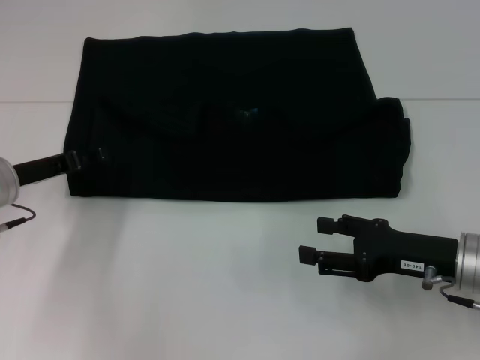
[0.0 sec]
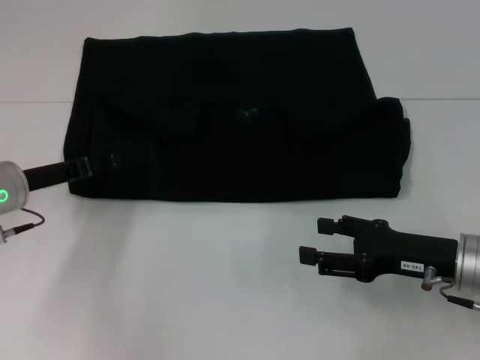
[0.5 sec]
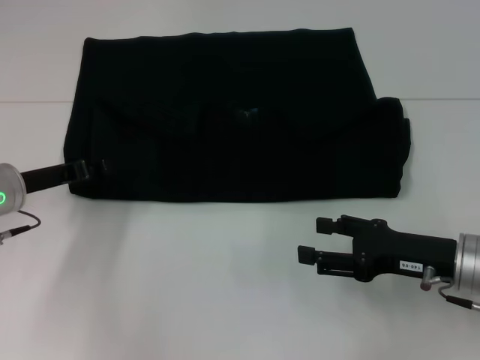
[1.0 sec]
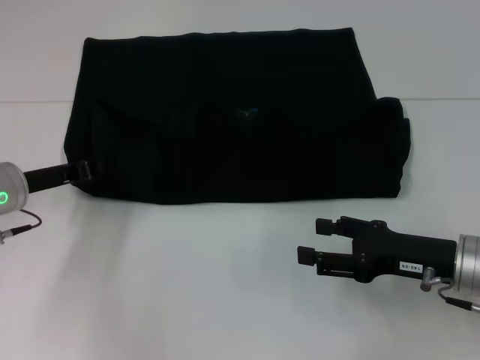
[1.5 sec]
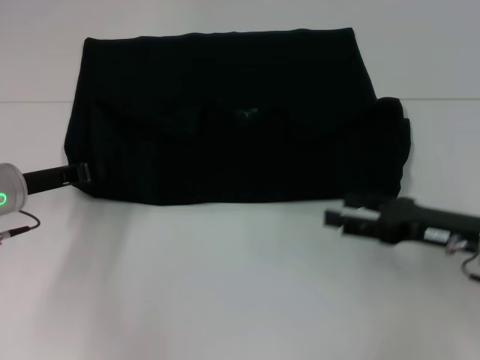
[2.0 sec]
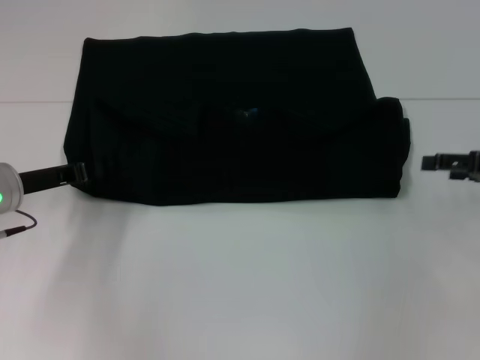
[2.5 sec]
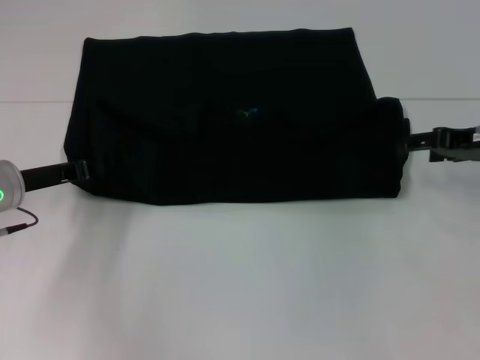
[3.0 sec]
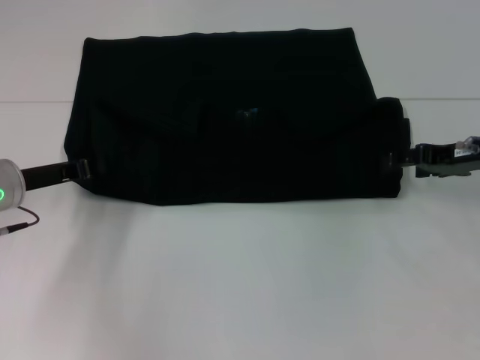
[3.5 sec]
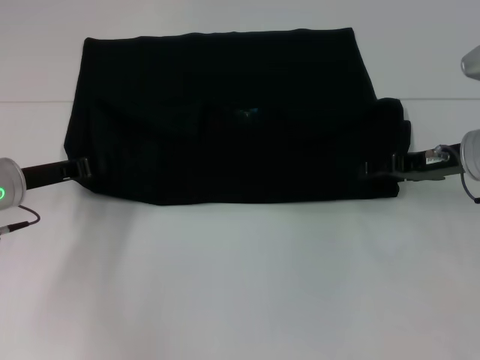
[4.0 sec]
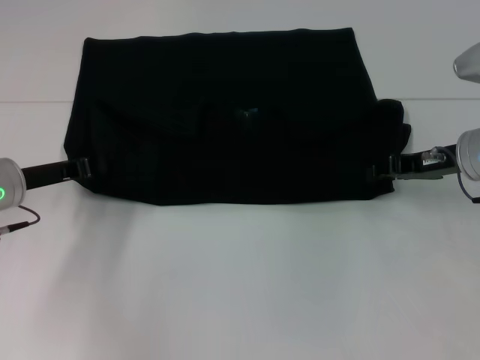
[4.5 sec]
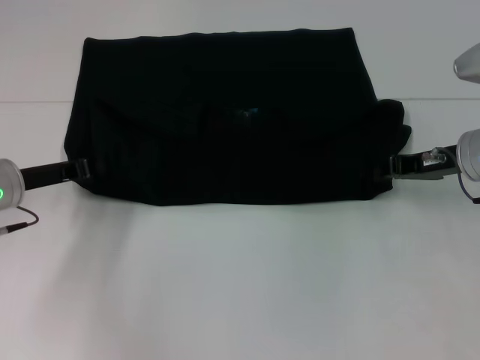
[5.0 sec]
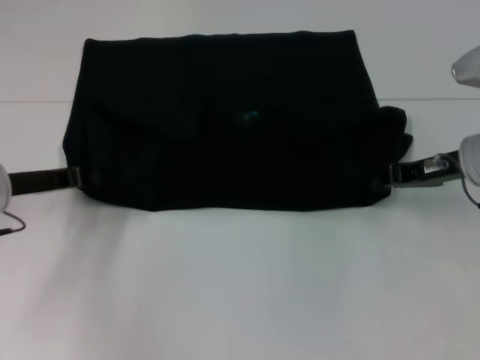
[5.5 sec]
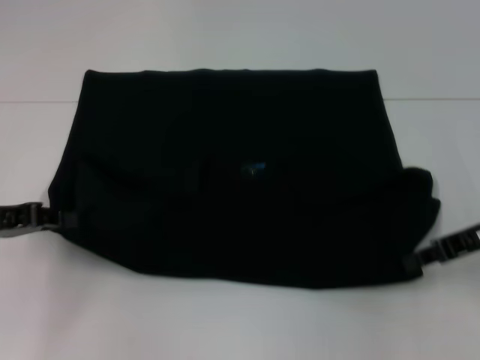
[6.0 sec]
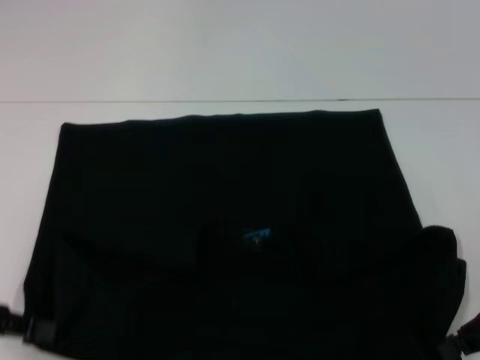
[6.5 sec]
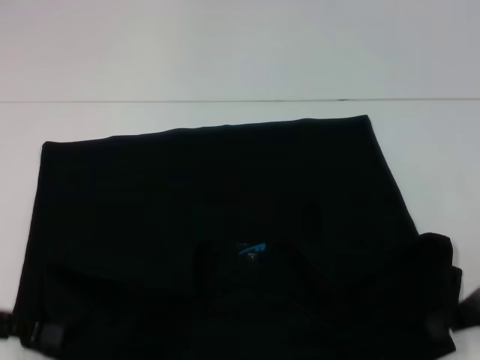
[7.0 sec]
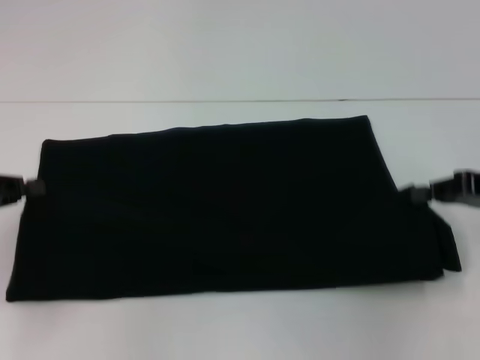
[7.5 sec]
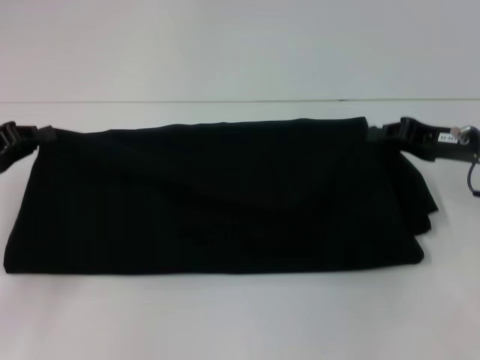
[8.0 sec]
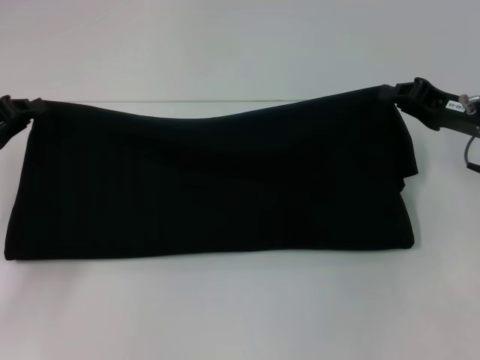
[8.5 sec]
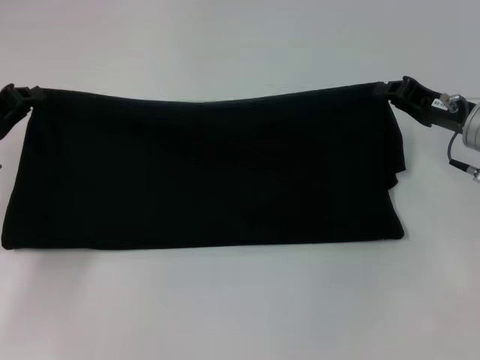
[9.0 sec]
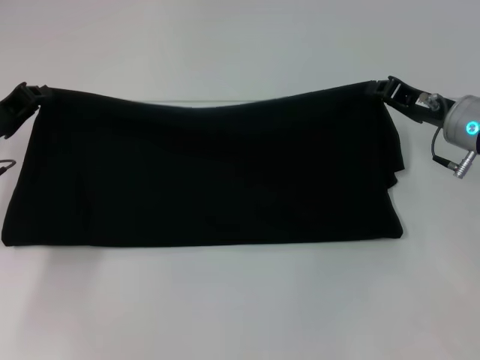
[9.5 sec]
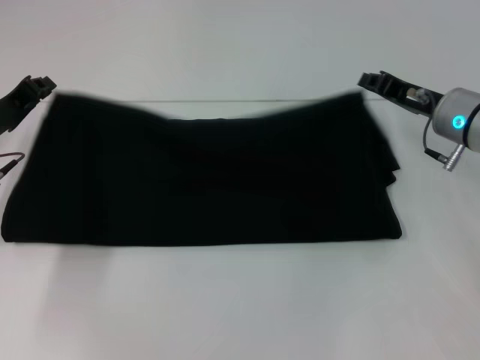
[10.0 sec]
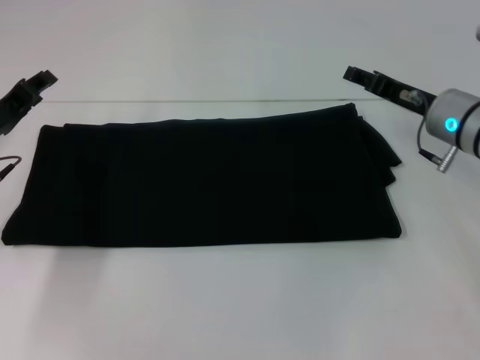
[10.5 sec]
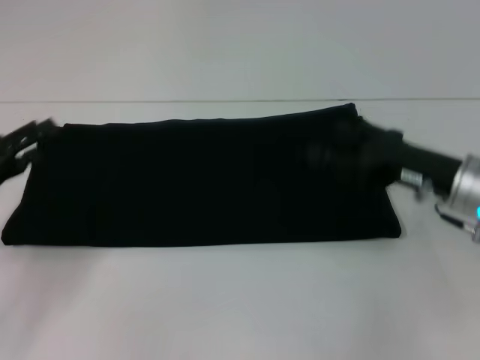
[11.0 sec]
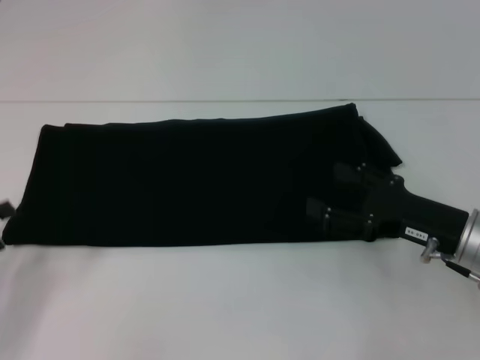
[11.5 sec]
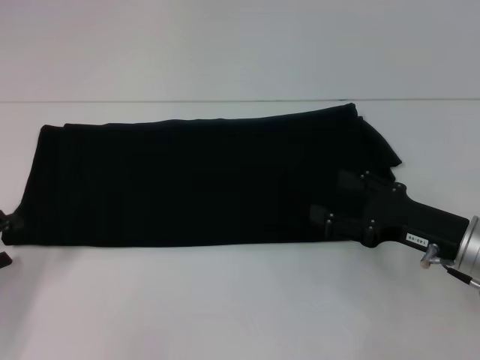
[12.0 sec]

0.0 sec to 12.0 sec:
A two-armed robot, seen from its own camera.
Step, 0.0 sec to 6.5 sec: Pull the clothes with your left hand.
Step, 0.0 sec to 6.5 sec: Pull the clothes with your right hand.
Step, 7.0 sec to 10.0 sec: Fold the clothes with your right hand.
0.0 sec to 2.0 sec: The left gripper closes its fingers.
2.0 sec to 4.0 sec: The right gripper moves forward, approximately 10 cm.
4.0 sec to 6.0 sec: The left gripper heads backward and to the left, covering some 10 cm. Meanwhile the right gripper heads backward, covering roughly 5 cm, and closes up.
6.0 sec to 8.0 sec: The left gripper reaches approximately 5 cm backward, then returns.
8.0 sec to 10.0 sec: The left gripper shifts roughly 5 cm forward, while the right gripper ends up approximately 5 cm from where it was.
10.0 sec to 12.0 sec: The left gripper is displaced backward and to the left by approximately 15 cm, and opens up; the right gripper heads backward and downward, covering roughly 15 cm, and opens up.

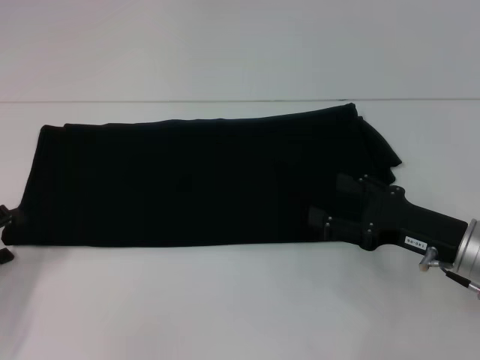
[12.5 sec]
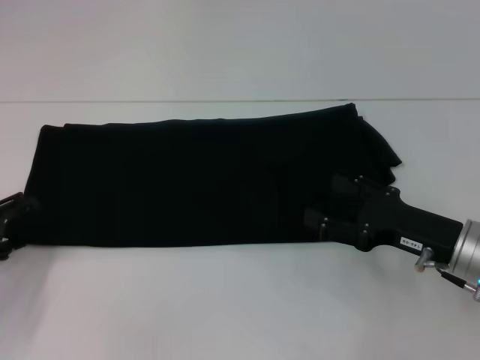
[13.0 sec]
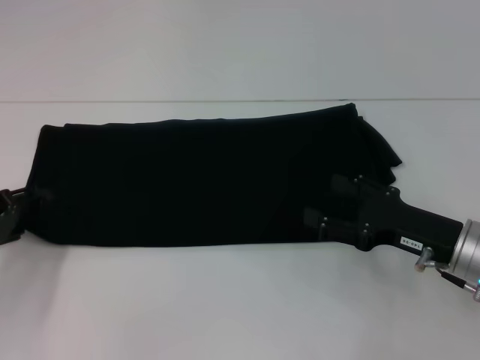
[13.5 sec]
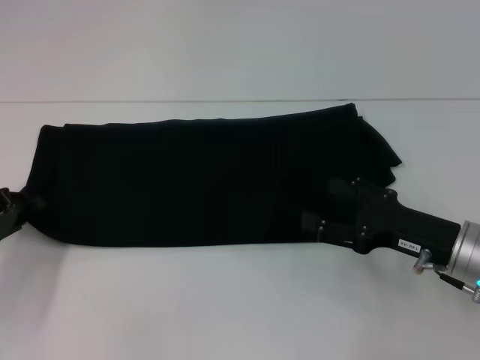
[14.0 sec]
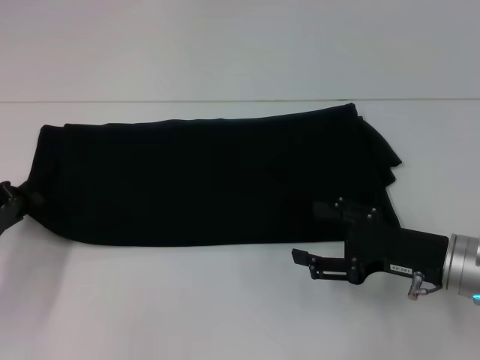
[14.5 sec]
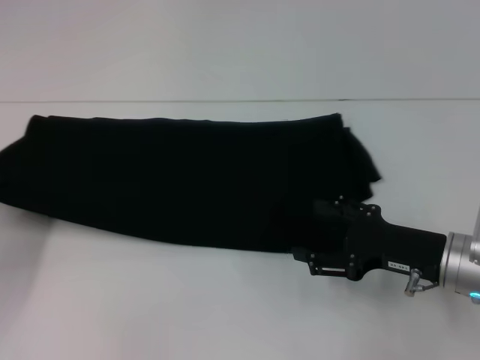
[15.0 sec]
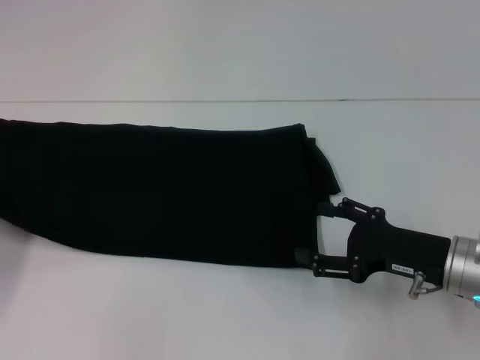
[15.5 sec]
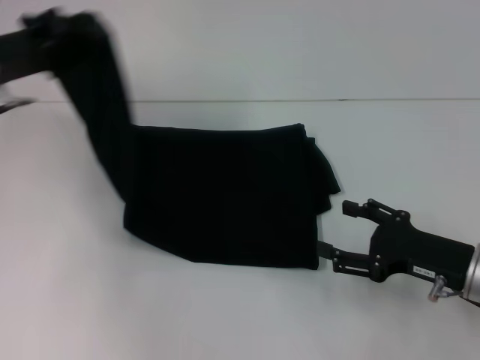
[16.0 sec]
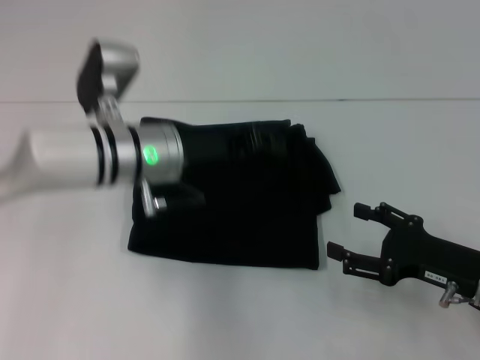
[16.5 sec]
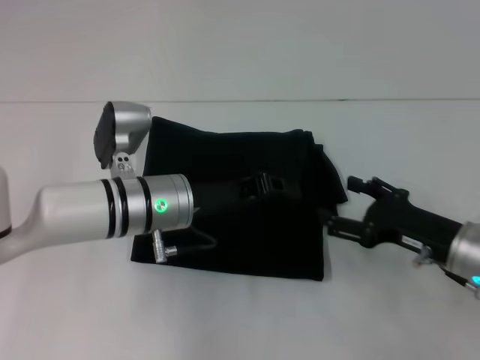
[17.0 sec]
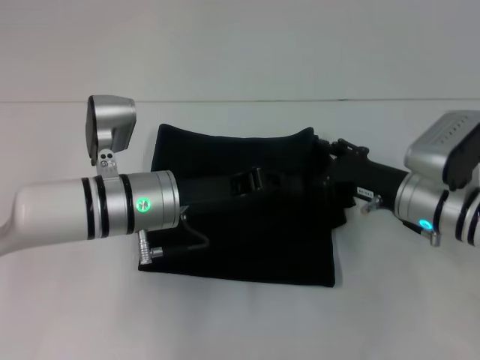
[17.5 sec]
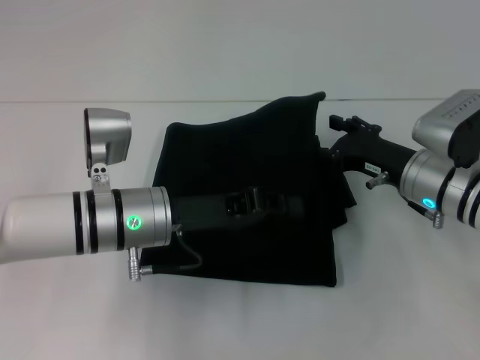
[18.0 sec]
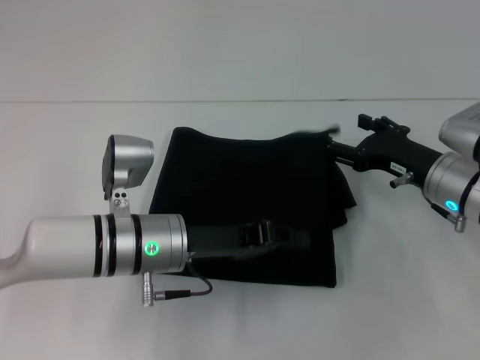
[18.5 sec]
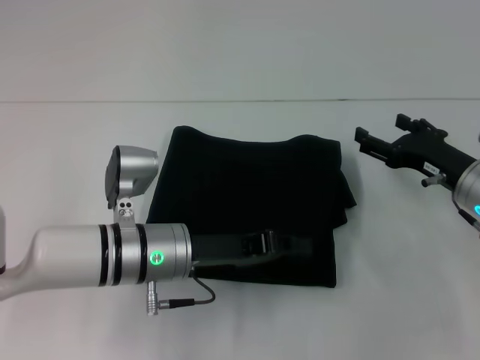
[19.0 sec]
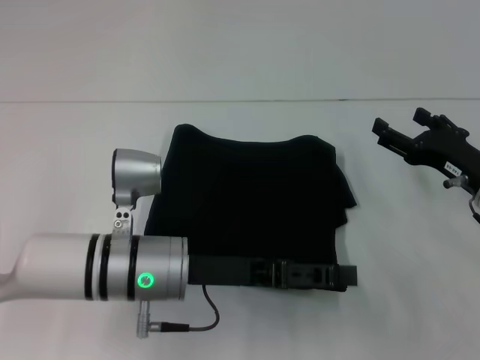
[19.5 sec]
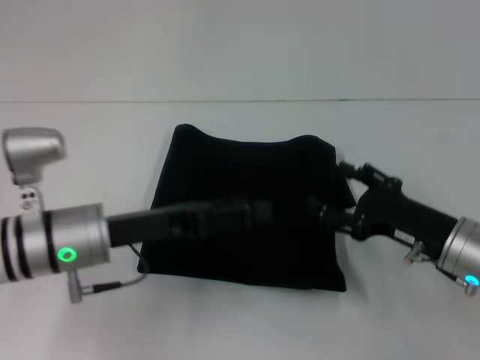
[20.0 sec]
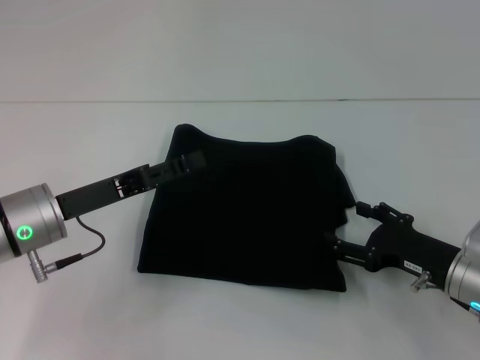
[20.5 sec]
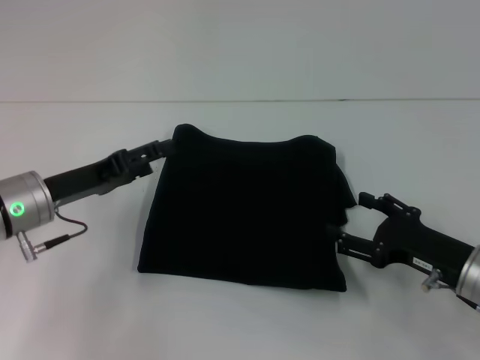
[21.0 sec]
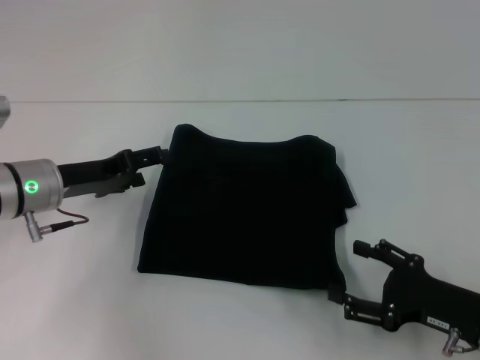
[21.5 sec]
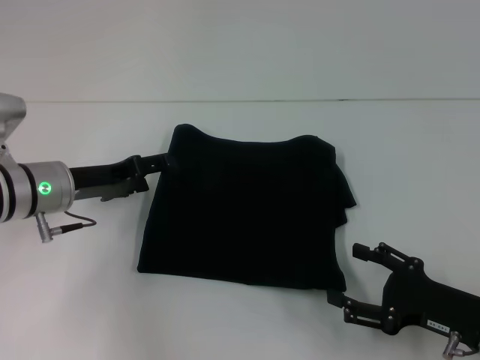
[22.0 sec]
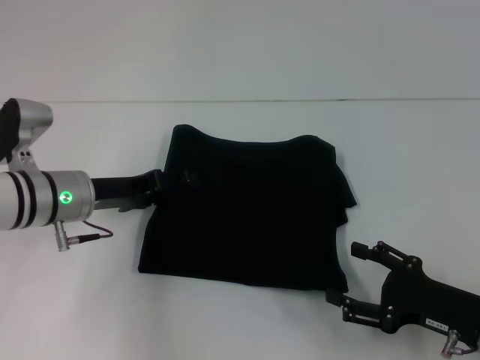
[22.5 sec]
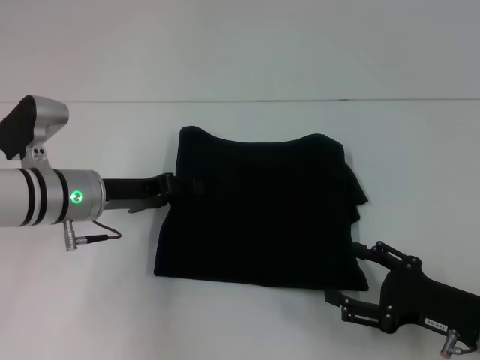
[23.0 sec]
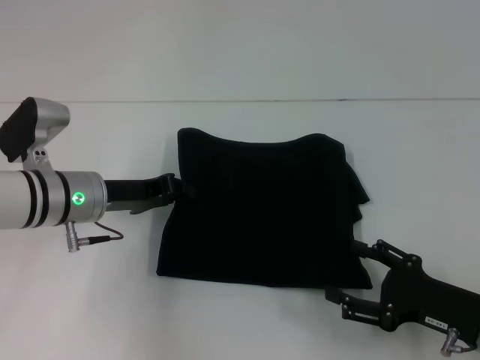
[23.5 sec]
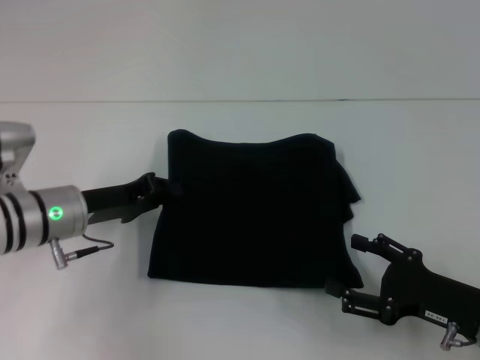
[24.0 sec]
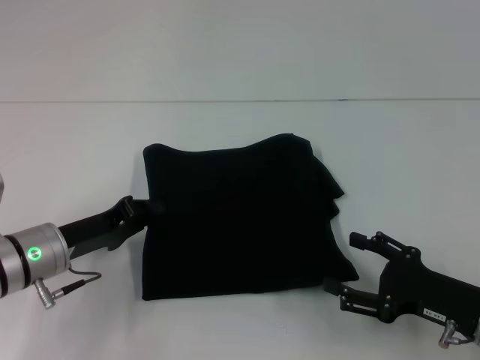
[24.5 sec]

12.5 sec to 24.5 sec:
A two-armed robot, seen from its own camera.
Step, 12.5 sec to 19.5 sec: Fold the clothes with your left hand.
12.5 sec to 14.5 sec: The left gripper shifts by approximately 5 cm, and closes.
14.5 sec to 16.5 sec: The left gripper is displaced to the right by roughly 25 cm.
16.5 sec to 18.5 sec: The left gripper heads backward and downward, covering about 10 cm, while the right gripper travels forward by some 10 cm.
18.5 sec to 20.5 sec: The right gripper moves backward, roughly 10 cm. Meanwhile the left gripper shifts approximately 10 cm to the left, and opens.
20.5 sec to 22.5 sec: The right gripper travels backward by approximately 5 cm; the left gripper moves forward, about 5 cm.
22.5 sec to 24.5 sec: The left gripper travels backward by some 5 cm, and closes its fingers.

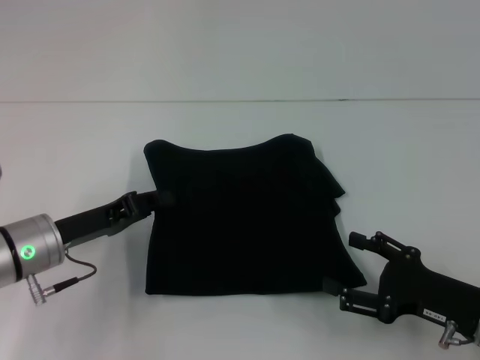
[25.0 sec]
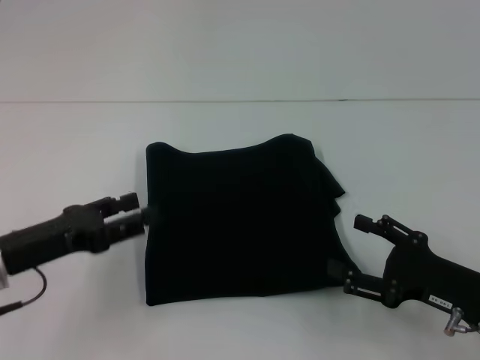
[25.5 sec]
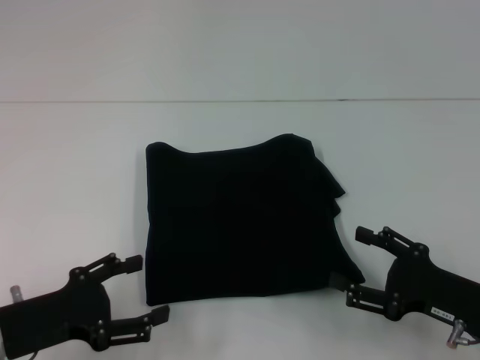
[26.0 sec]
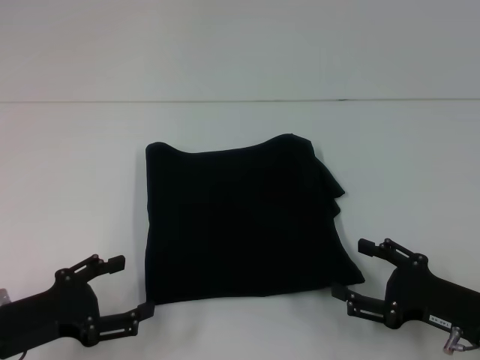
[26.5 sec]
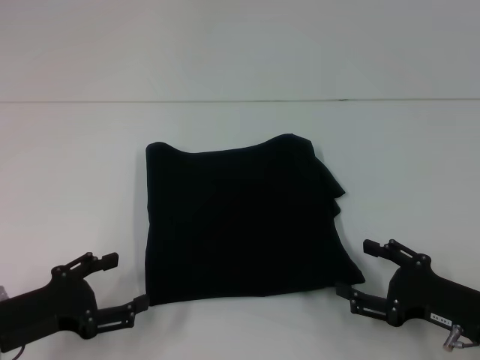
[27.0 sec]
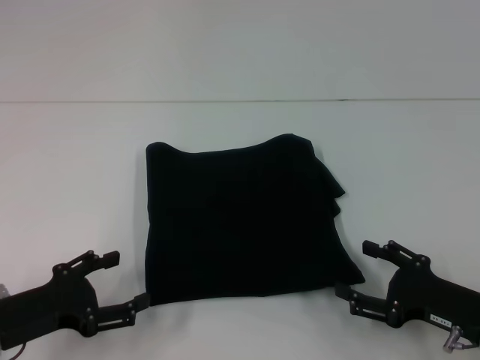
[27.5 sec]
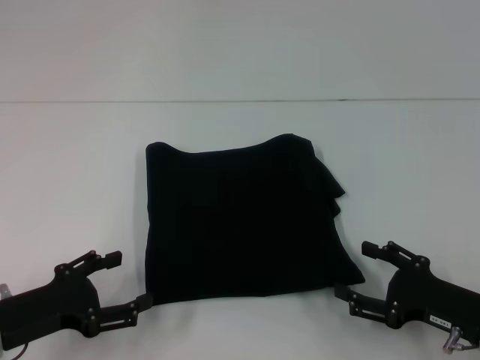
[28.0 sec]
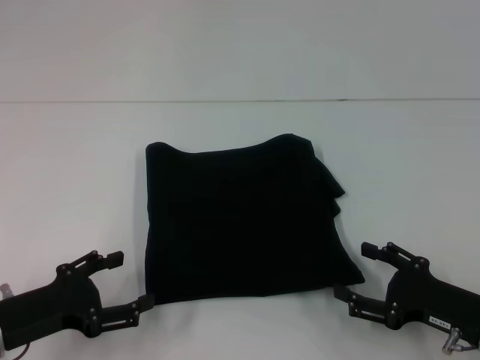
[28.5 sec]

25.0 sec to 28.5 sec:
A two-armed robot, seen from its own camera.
25.0 sec to 27.0 sec: The left gripper is displaced backward by about 10 cm, and opens.
27.0 sec to 28.5 sec: Both grippers stay put.
